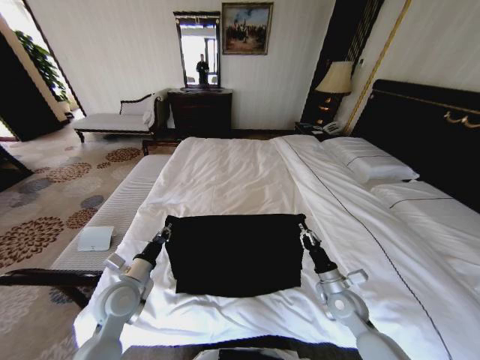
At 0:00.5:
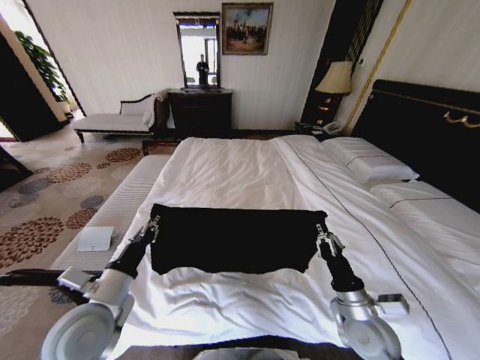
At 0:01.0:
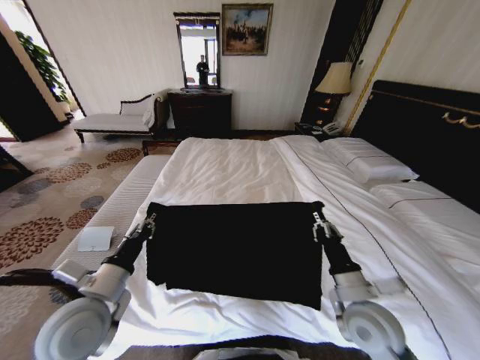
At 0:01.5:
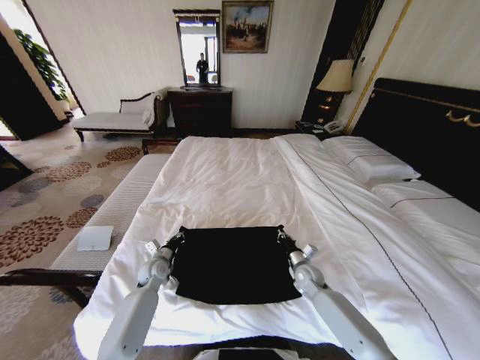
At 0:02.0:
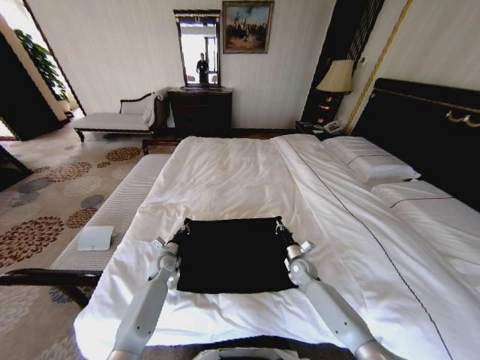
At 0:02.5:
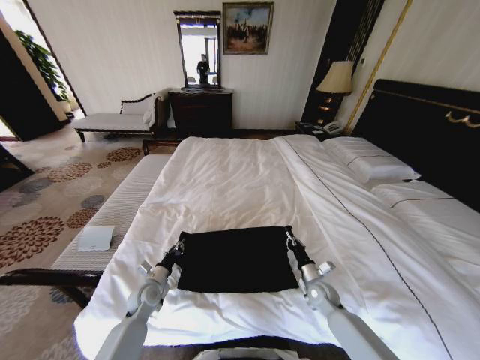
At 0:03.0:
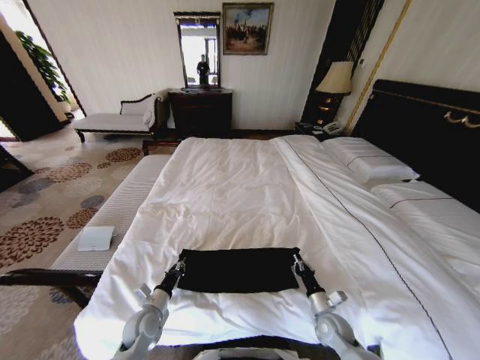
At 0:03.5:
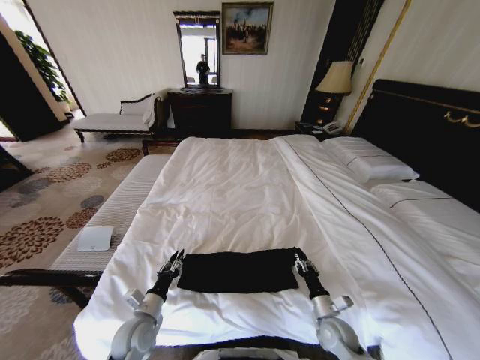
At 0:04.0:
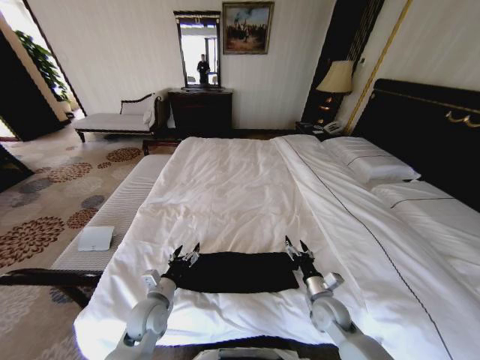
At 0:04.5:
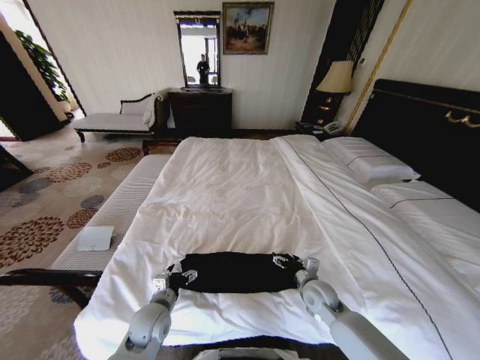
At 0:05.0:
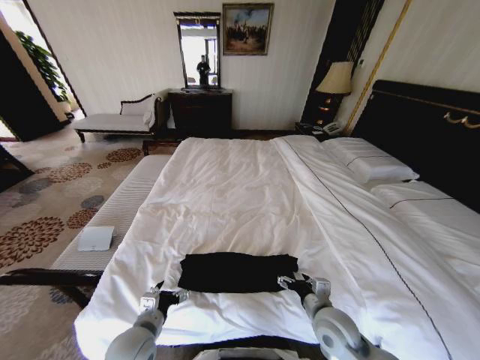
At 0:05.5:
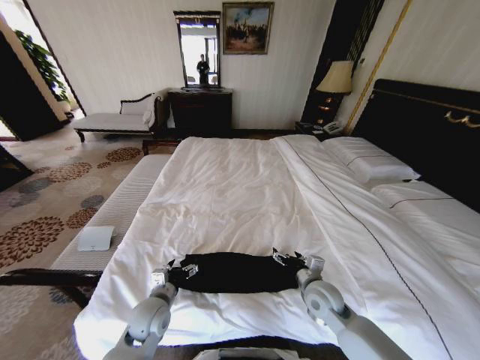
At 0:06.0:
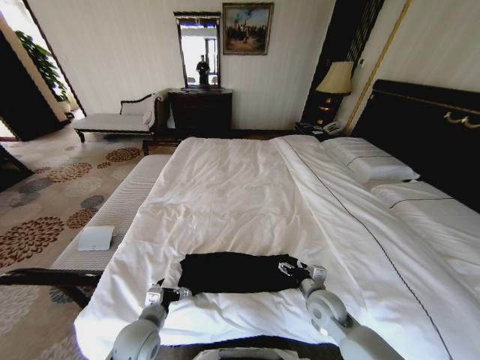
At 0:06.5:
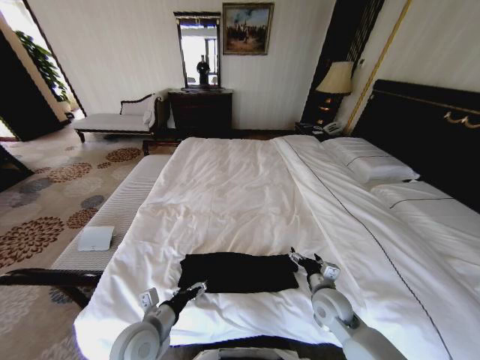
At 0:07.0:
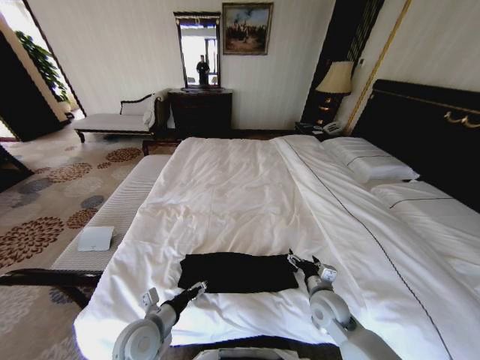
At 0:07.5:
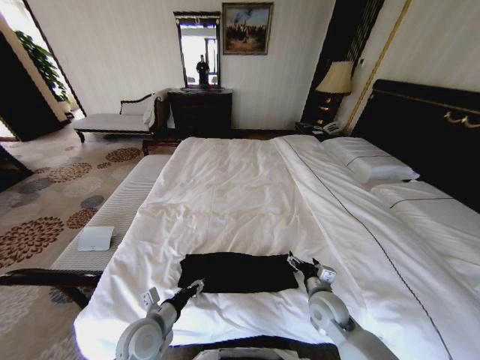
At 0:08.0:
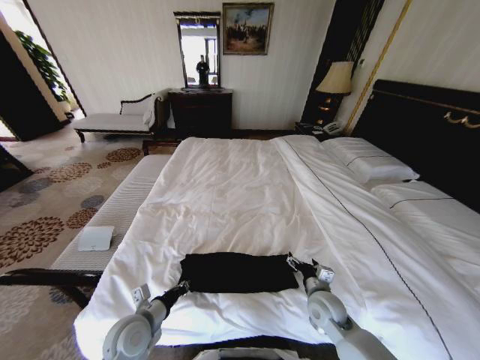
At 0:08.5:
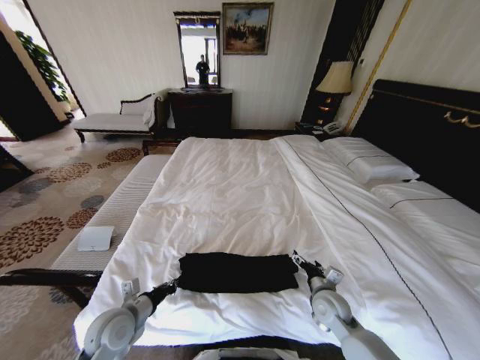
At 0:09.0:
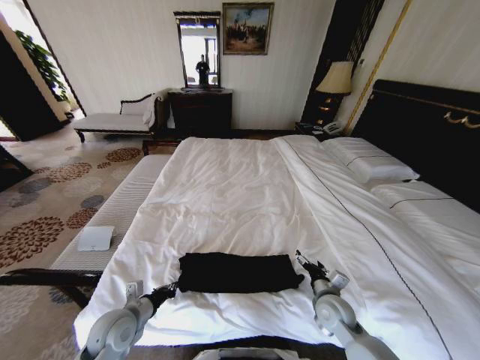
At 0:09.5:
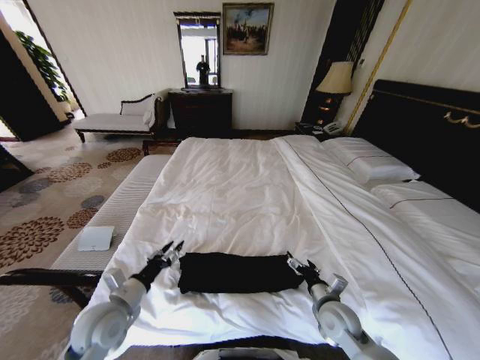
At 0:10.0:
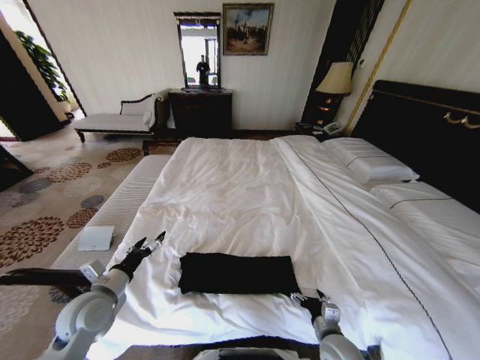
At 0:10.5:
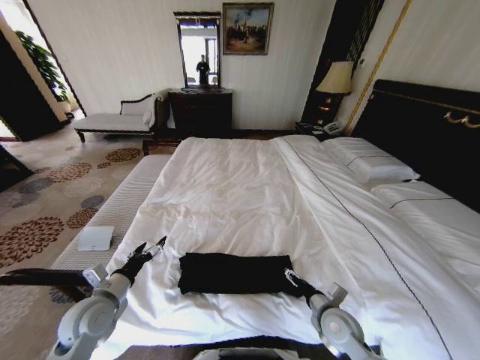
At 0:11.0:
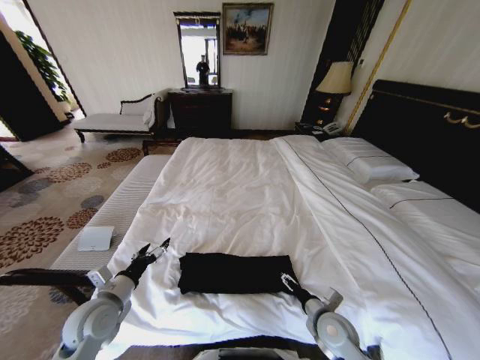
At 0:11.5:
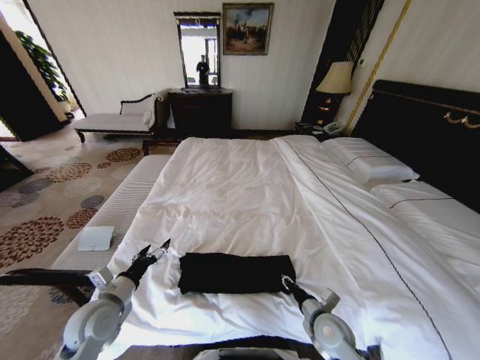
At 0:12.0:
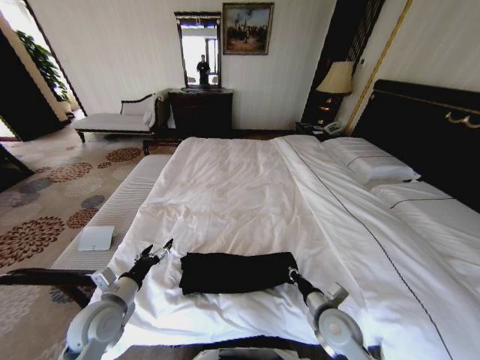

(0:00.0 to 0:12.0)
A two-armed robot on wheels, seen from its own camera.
Task of the whole recording: Fold the clothes on the bed.
0:00.0 - 0:02.0: Both grippers move forward and downward, about 20 cm.
0:02.0 - 0:04.0: The right gripper heads backward, covering some 15 cm, and opens, while the left gripper heads backward and upward, covering approximately 20 cm, and opens up.
0:04.0 - 0:06.0: The left gripper swings forward and backward, approximately 5 cm each way, with 2 reversals. Meanwhile the right gripper moves forward and backward over approximately 10 cm, changing direction 2 times.
0:06.0 - 0:08.0: The left gripper closes up.
0:08.0 - 0:10.0: The right gripper heads backward, covering about 10 cm. Meanwhile the left gripper heads to the left and upward, covering about 10 cm, and opens.
0:10.0 - 0:12.0: The right gripper travels upward by about 5 cm, and closes its fingers.

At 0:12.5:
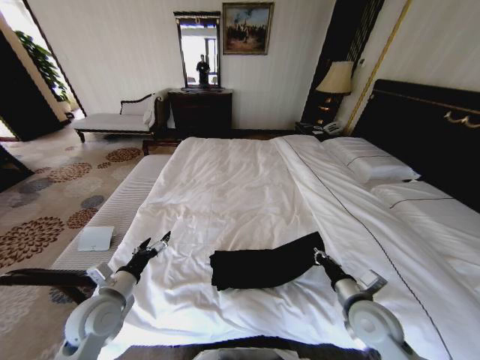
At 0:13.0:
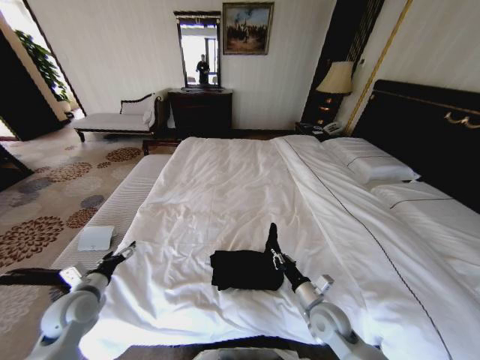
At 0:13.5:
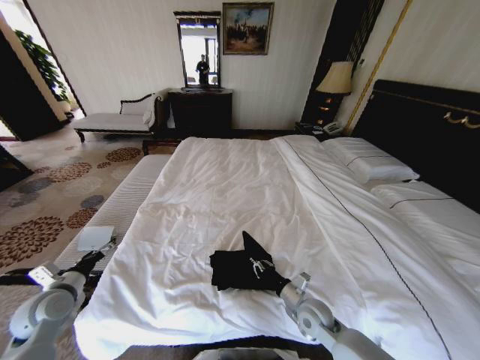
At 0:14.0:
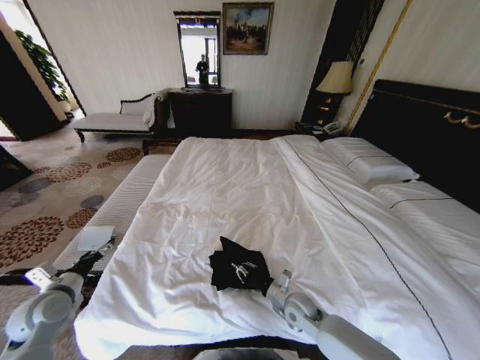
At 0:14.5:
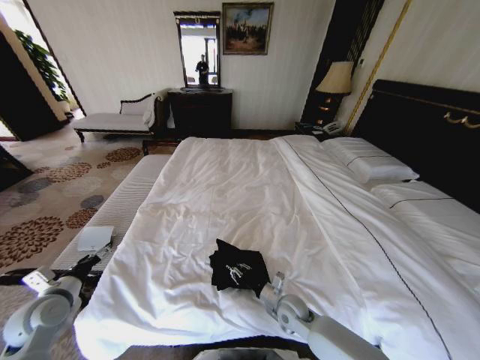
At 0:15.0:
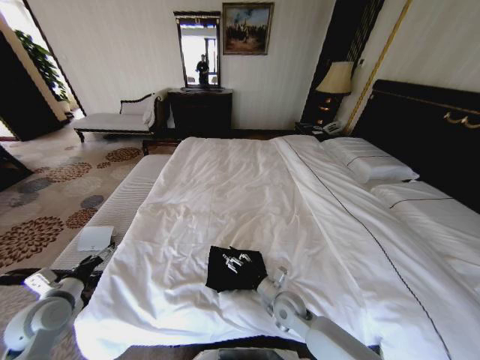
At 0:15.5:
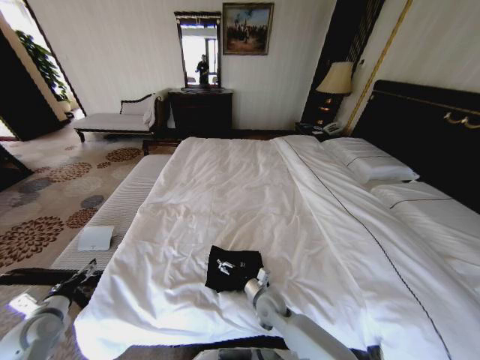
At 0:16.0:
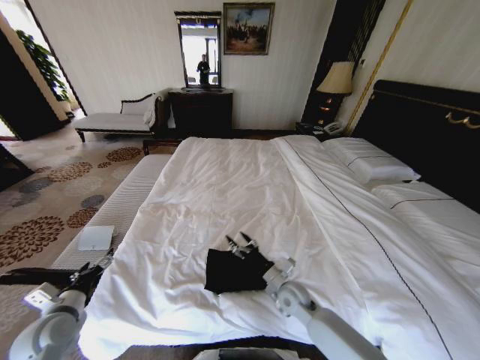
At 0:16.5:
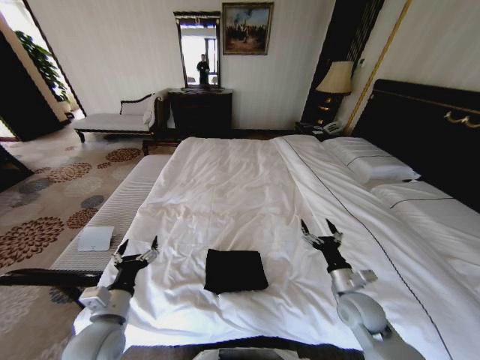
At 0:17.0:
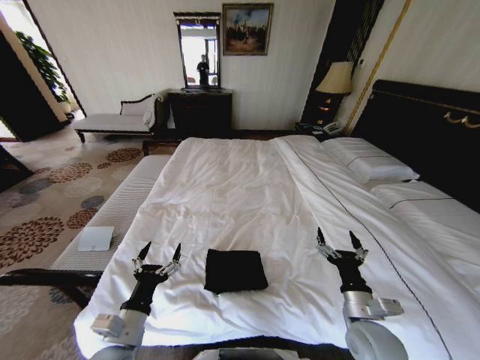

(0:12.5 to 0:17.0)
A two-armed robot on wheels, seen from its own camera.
Task of the whole recording: Fold the clothes on the bed.
0:12.5 - 0:14.5: The right gripper goes approximately 20 cm downward, to the left and forward, while the left gripper travels to the left by roughly 15 cm.
0:14.5 - 0:17.0: The left gripper is displaced to the right and backward by some 25 cm, while the right gripper goes roughly 20 cm upward, to the right and backward, and opens up.

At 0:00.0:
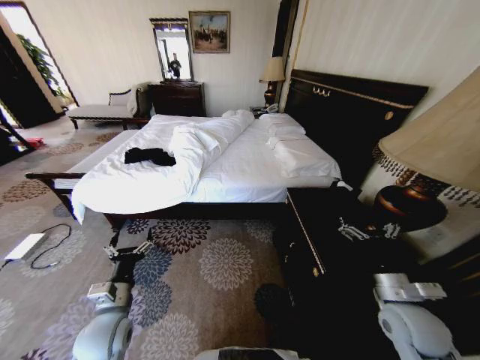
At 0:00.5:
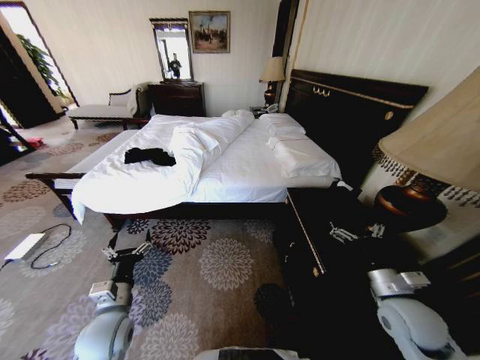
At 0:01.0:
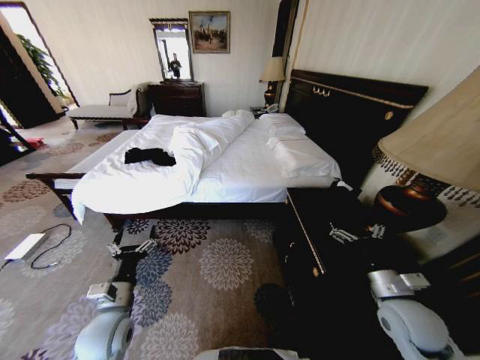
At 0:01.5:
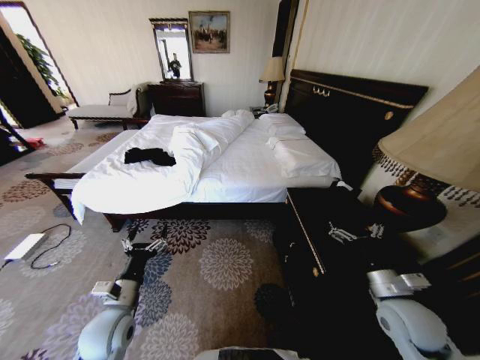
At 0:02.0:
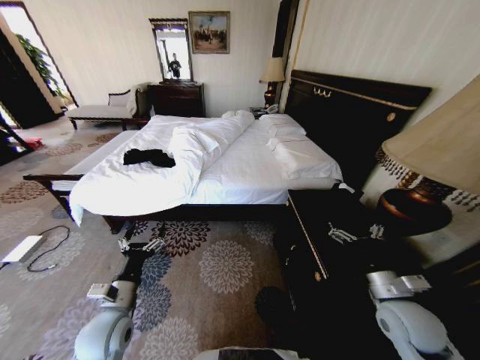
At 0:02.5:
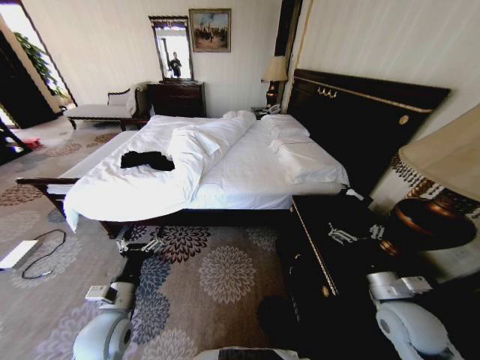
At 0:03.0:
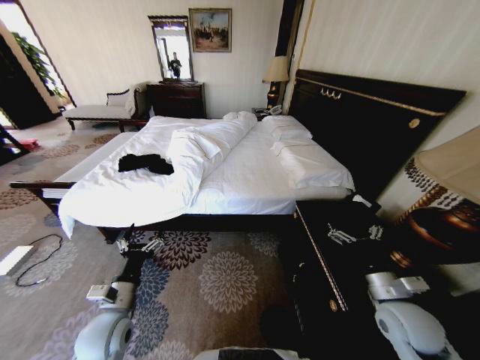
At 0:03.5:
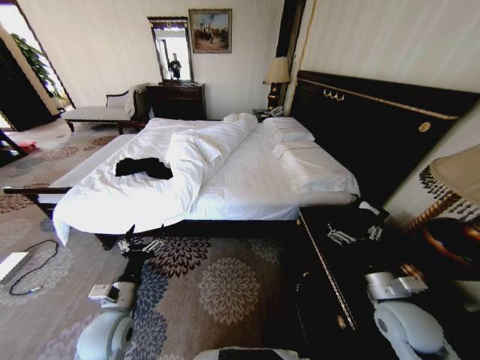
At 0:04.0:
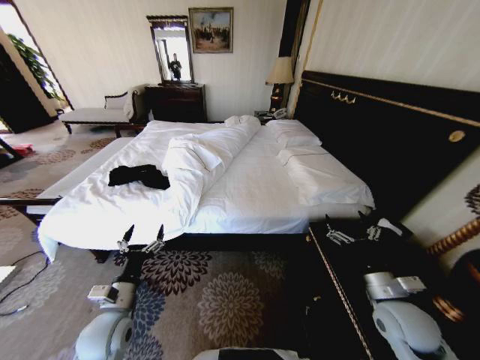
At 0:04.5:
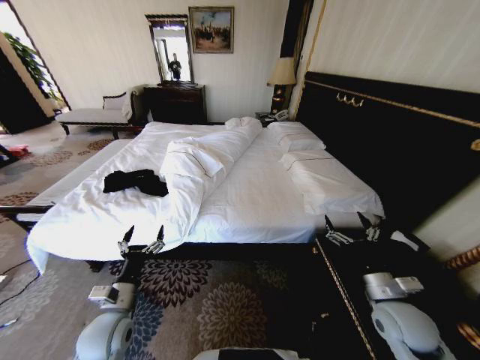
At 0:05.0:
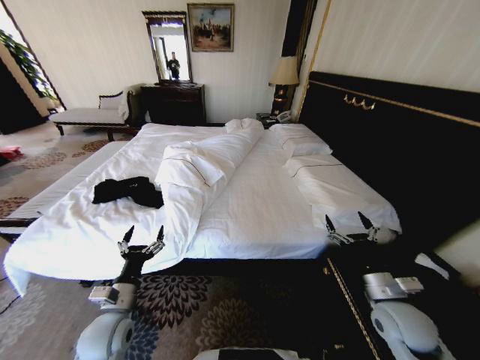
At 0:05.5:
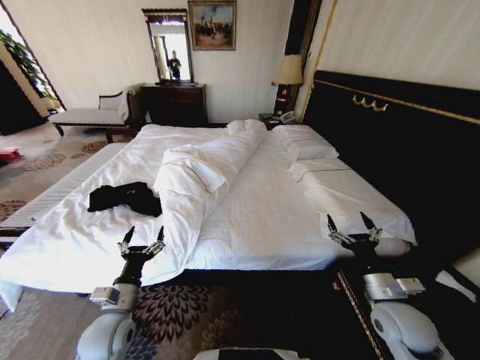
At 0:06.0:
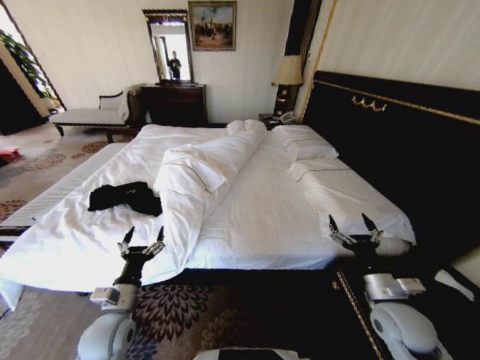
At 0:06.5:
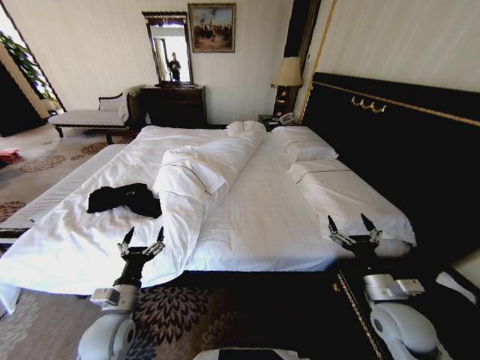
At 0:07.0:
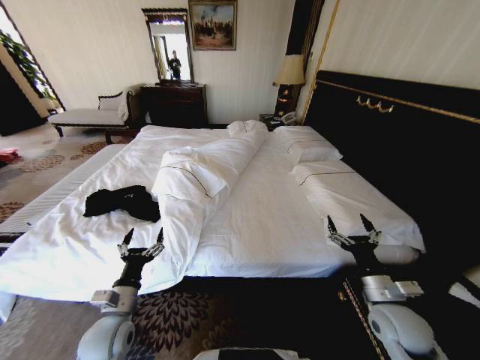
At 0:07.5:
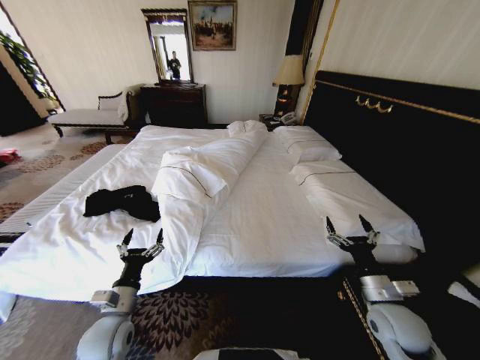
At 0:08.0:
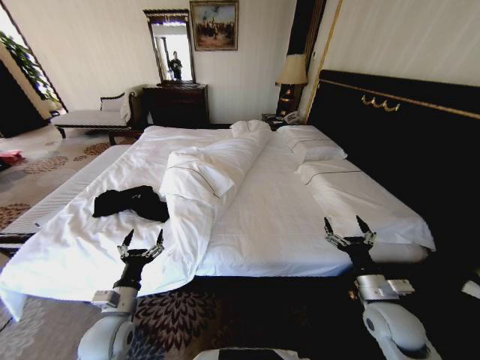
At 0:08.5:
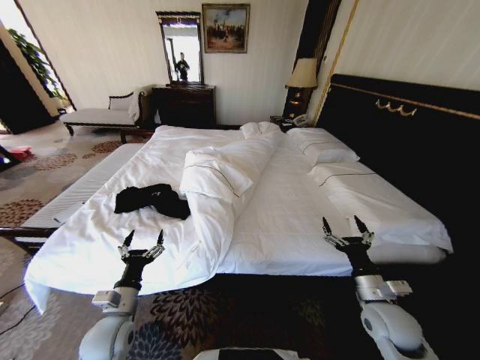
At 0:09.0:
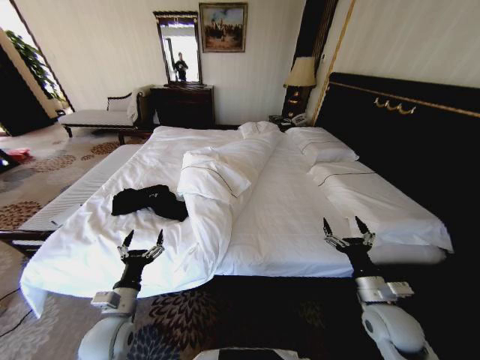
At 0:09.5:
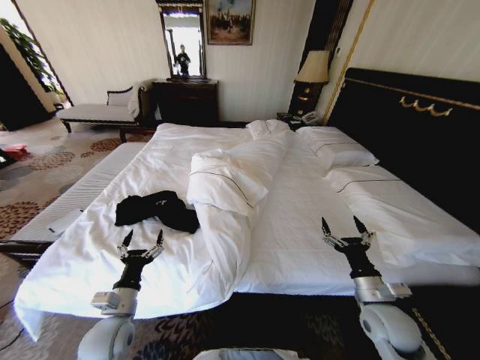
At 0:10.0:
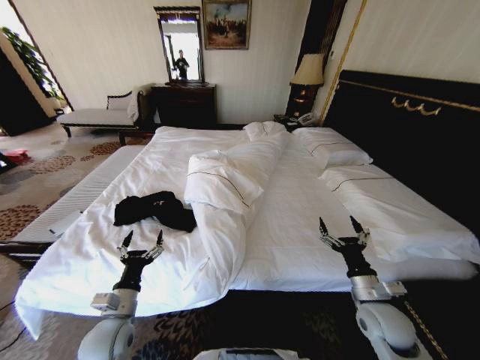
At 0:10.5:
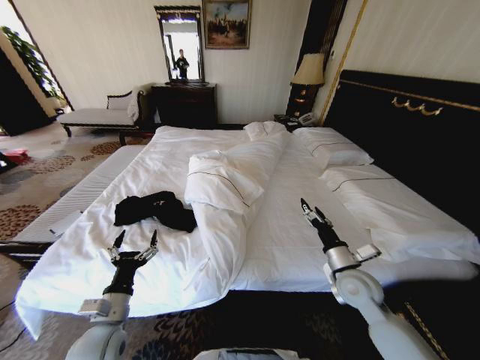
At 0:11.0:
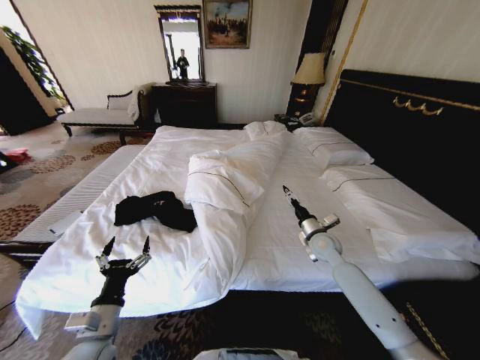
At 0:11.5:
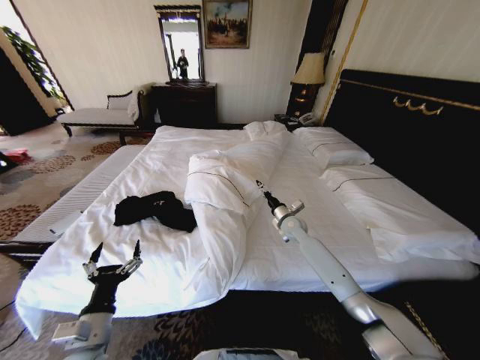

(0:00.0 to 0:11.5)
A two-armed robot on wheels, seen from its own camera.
Task of the whole recording: Fold the clothes on the bed.
0:06.0 - 0:07.5: Both grippers stay put.
0:09.5 - 0:11.5: The right gripper is displaced forward and to the left by roughly 30 cm, while the left gripper travels backward by some 5 cm.
